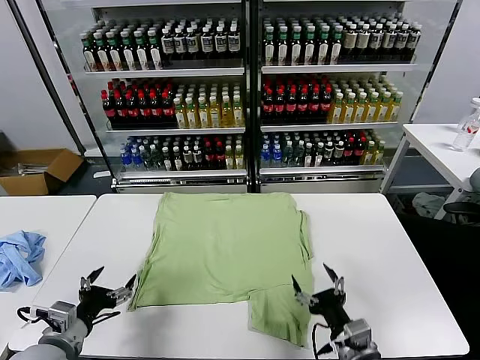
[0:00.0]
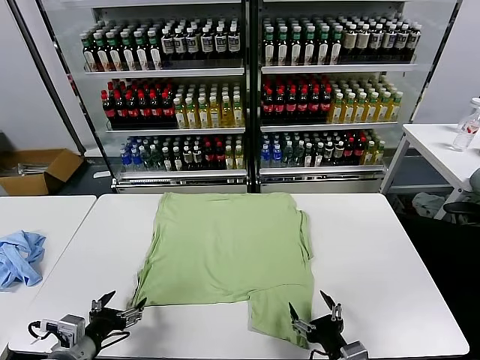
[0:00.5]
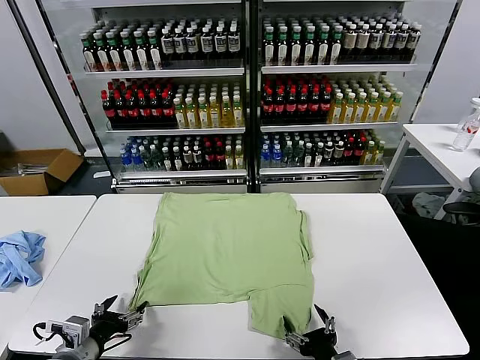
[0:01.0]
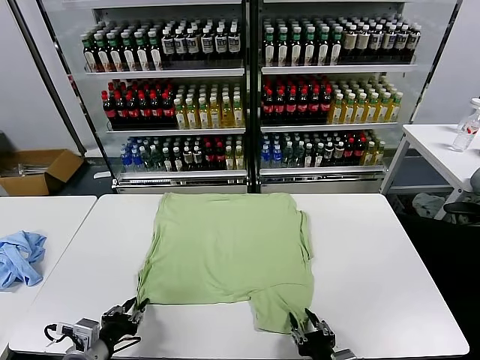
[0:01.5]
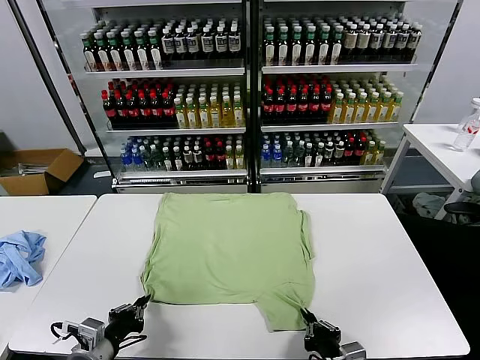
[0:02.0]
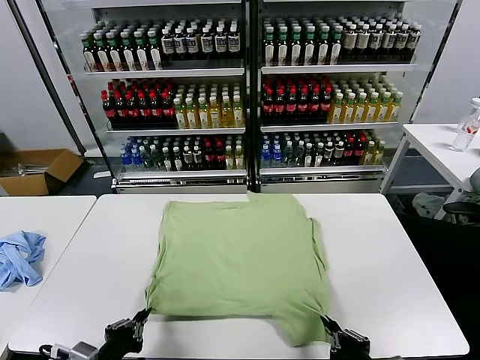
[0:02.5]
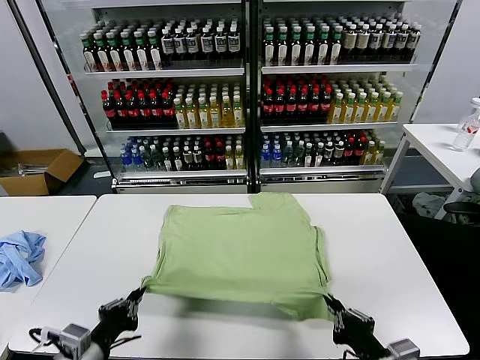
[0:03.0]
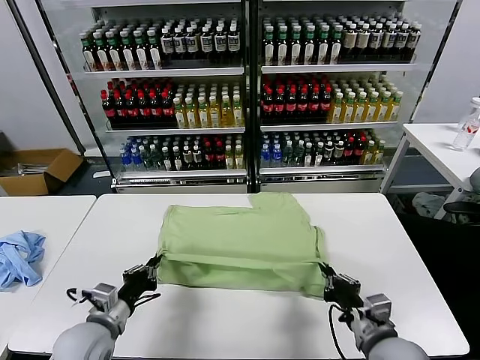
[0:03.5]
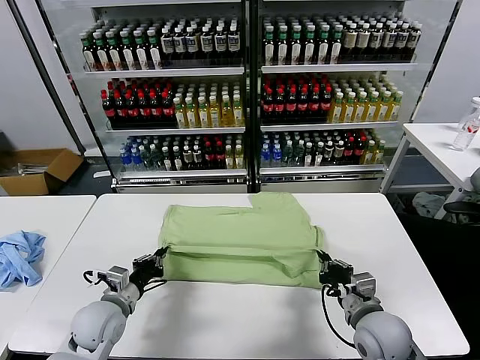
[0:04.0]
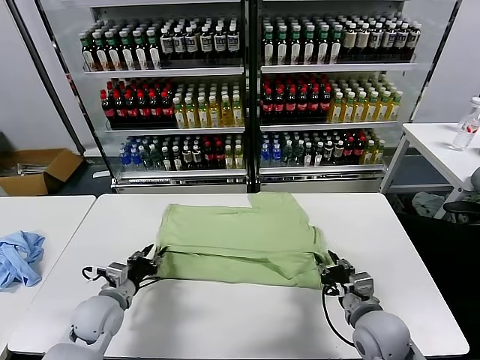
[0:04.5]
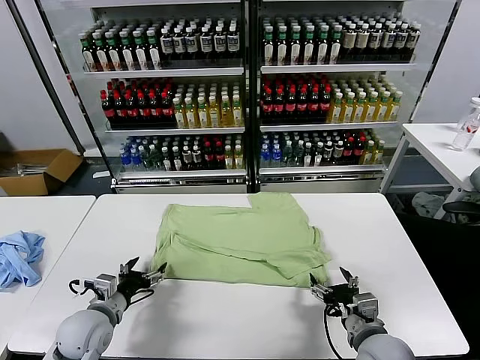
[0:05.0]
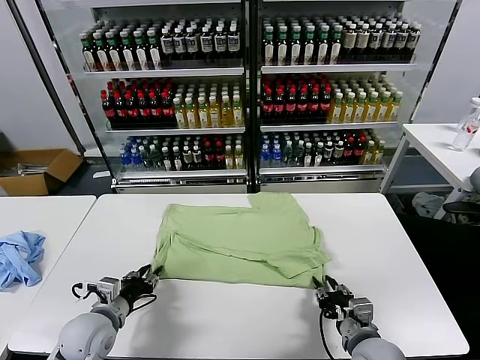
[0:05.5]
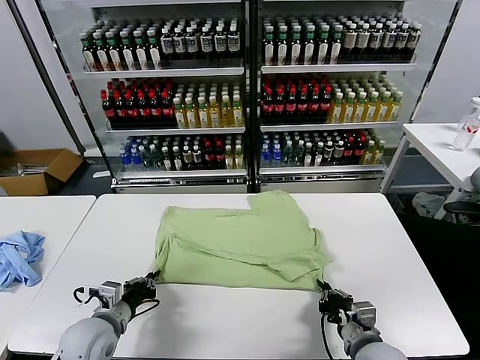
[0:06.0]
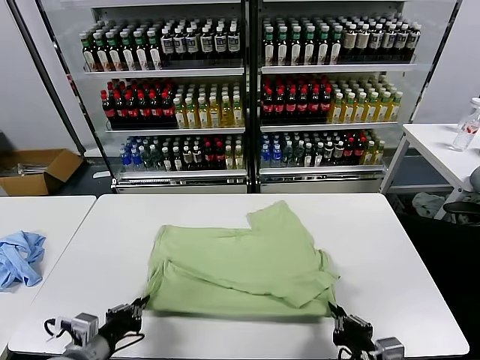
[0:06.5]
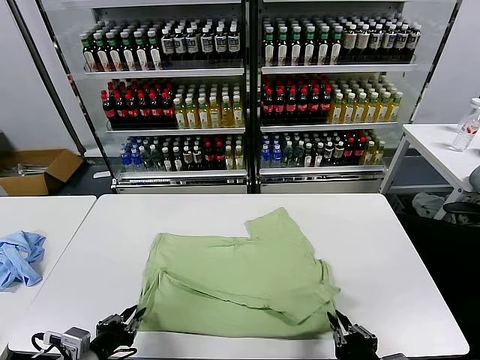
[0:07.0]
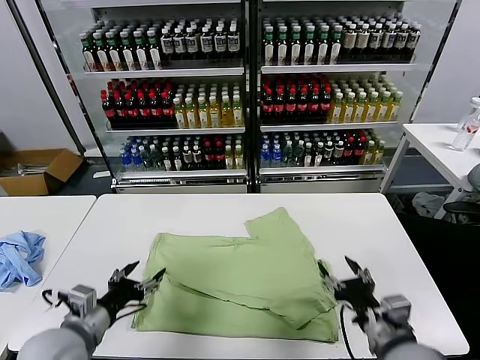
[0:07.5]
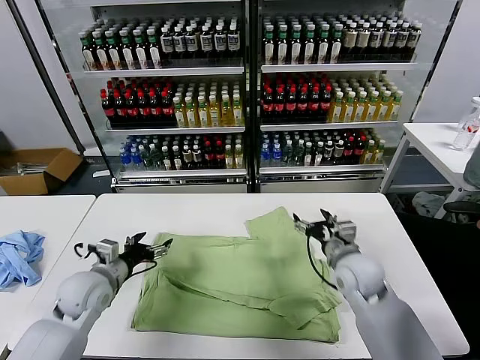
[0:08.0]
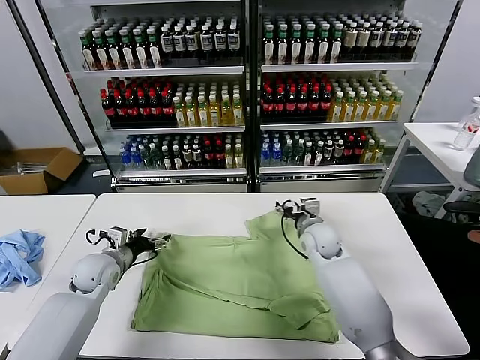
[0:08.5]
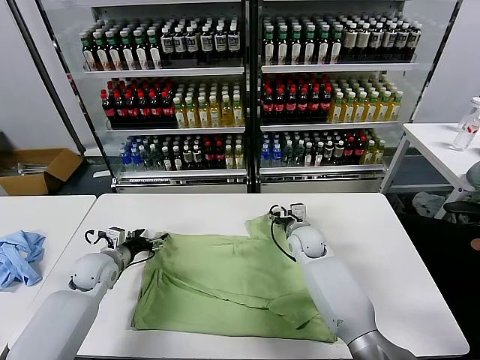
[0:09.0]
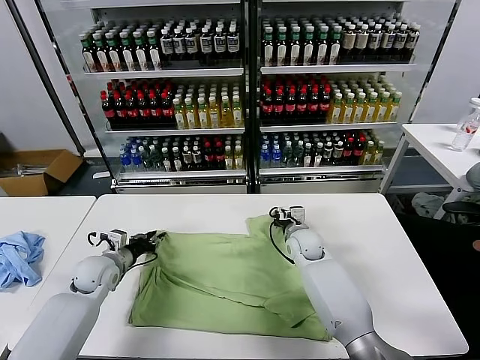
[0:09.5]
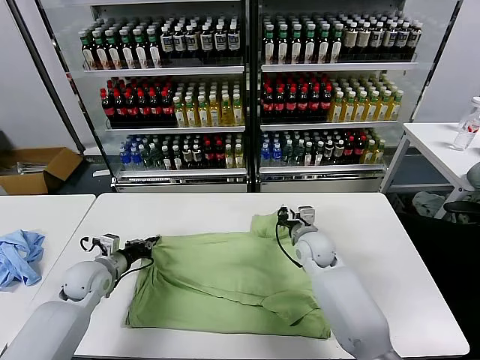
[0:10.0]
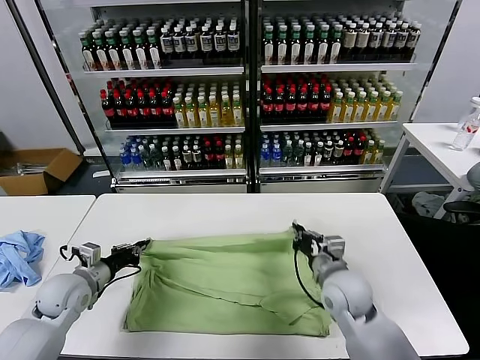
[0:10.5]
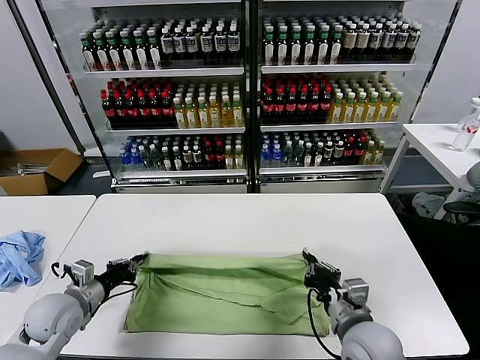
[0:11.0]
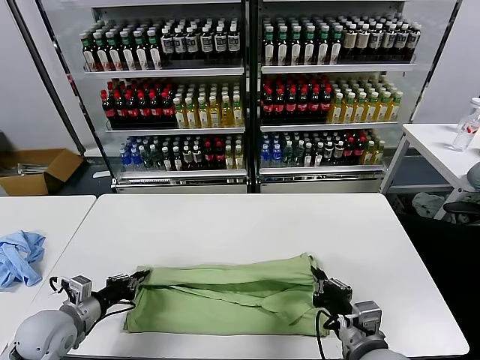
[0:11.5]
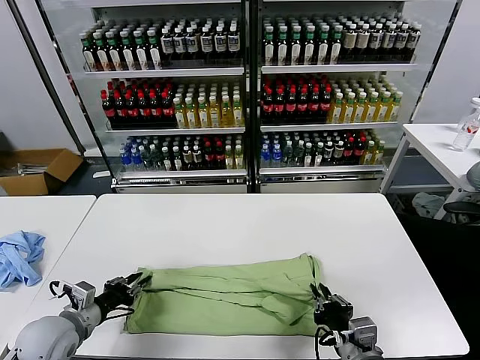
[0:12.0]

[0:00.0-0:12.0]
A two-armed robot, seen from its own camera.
Task of the whole recording: fold and organize the clothes.
Step, 0:00.0 to 0:01.5: use both grippers simultaneously to clamp the lower edge of the clothing fabric.
Step, 0:02.0 to 0:04.0: use both grippers to drag the lower edge of the fabric forward and fold it over the upper edge.
Step, 0:04.5 to 0:07.0: Drag the clothes downward with both gripper.
Step, 0:07.5 to 0:09.5: use both grippers simultaneously to clamp the upper edge of the clothing fabric.
0:02.0 to 0:04.0: The two grippers go approximately 15 cm forward.
0:04.0 to 0:06.0: The grippers both shift backward by some 5 cm. The left gripper opens and closes again. The right gripper opens and closes again.
0:06.0 to 0:08.0: The left gripper moves forward, some 10 cm, and opens; the right gripper moves forward, some 20 cm, and opens.
0:08.0 to 0:10.0: The left gripper ends up about 5 cm from where it was, and closes up; the right gripper closes its fingers.
0:10.0 to 0:12.0: The right gripper is displaced backward by some 30 cm. The left gripper is displaced backward by some 15 cm, and opens.

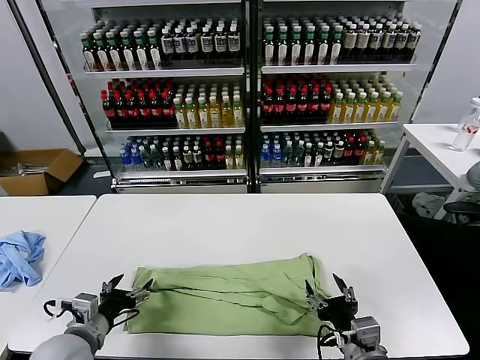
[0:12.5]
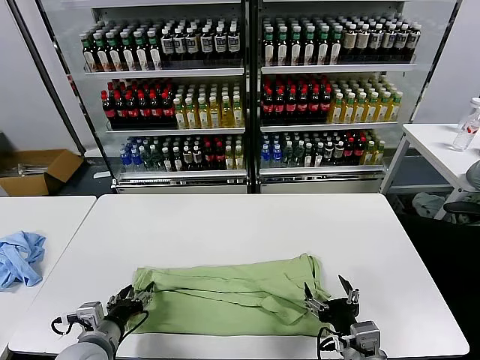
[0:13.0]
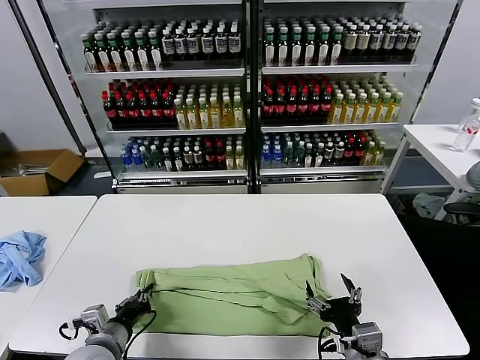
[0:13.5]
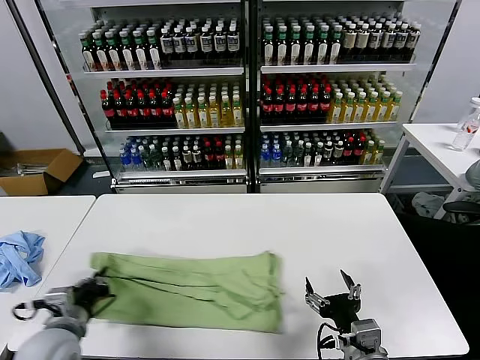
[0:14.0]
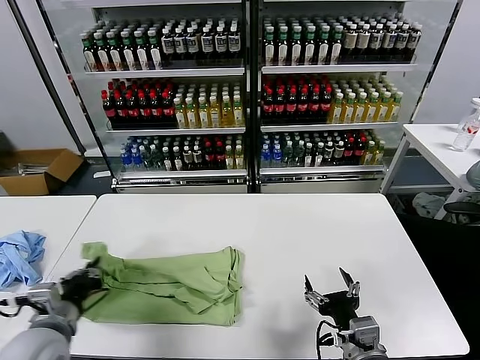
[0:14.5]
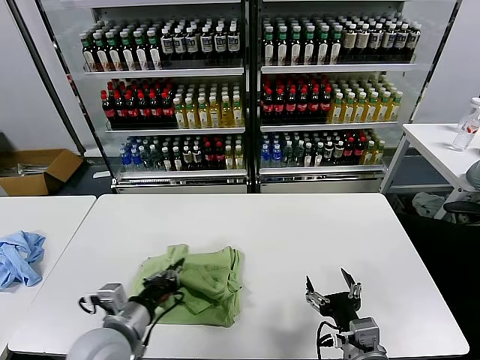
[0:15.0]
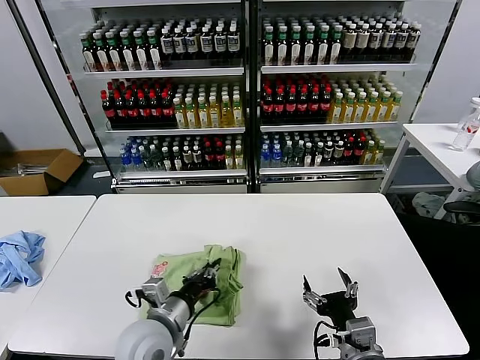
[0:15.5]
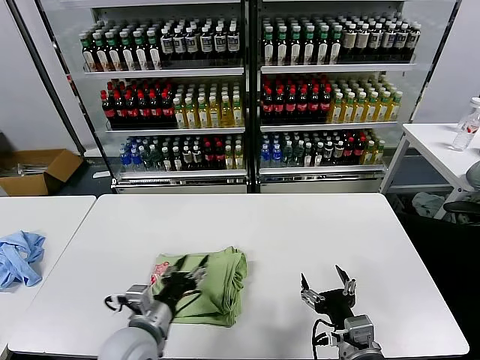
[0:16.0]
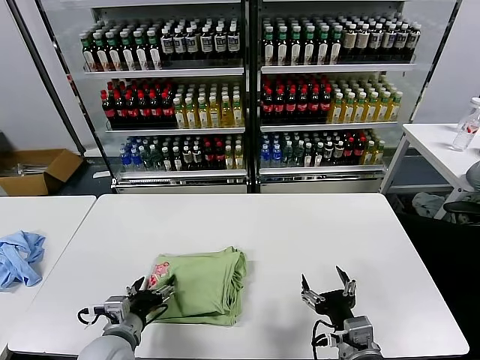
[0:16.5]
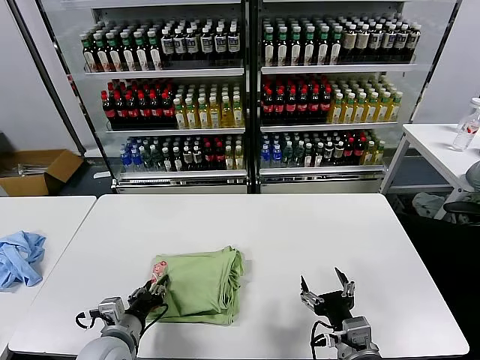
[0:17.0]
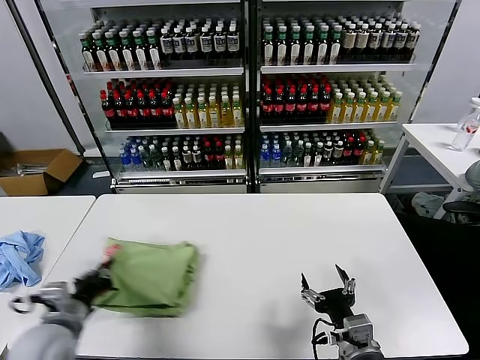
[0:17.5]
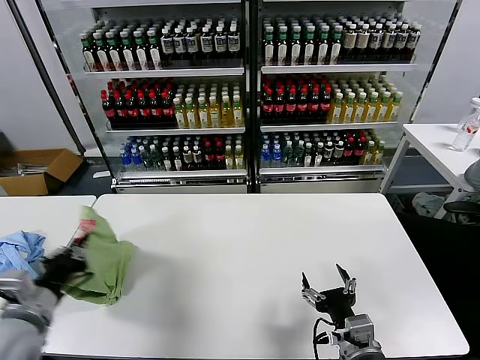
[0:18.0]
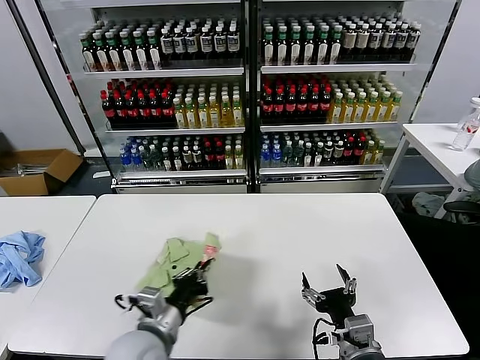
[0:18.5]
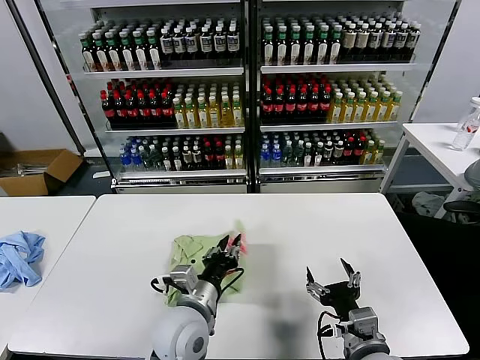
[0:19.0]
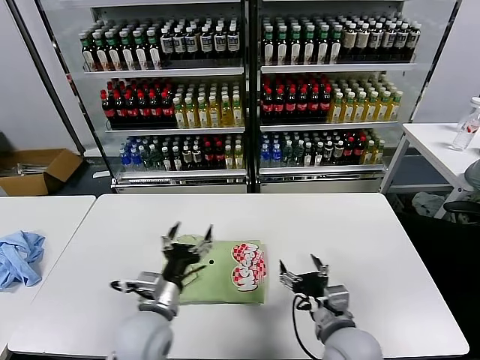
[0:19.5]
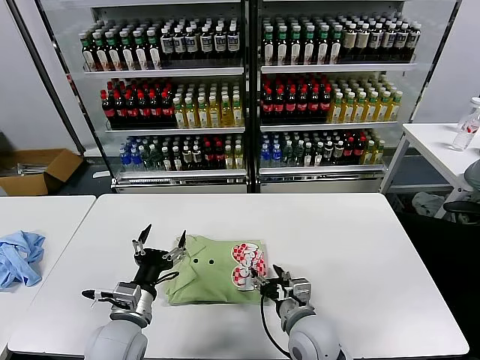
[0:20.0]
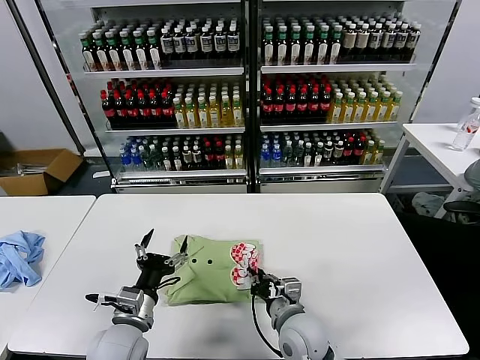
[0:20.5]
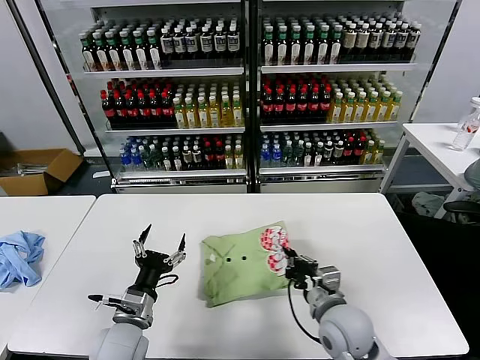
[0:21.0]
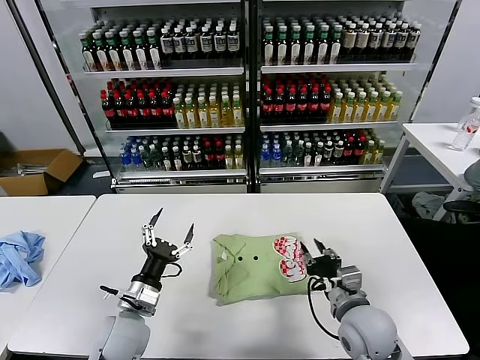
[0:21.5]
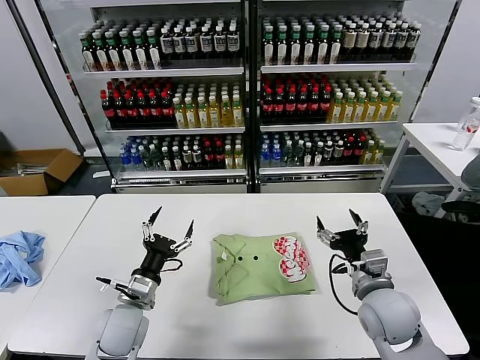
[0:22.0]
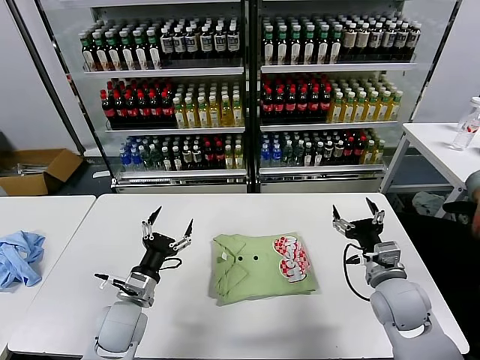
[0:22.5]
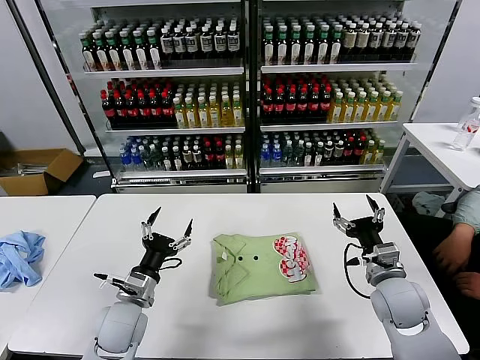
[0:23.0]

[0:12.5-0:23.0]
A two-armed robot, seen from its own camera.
Task of the whole recording: fold and organize the clothes.
Step, 0:12.5 to 0:13.5: use the left gripper to clamp the left edge of the fabric.
Step, 0:14.0 to 0:15.5: use the left gripper to drag the left edge of the fabric to the left and folds it over the right edge.
Step, 0:16.0 to 0:19.0: Flip the folded clothes over with left gripper.
Step, 0:19.5 to 0:21.5: Drag the clothes to the center of the table.
0:12.5 to 0:14.5: The left gripper moves upward, some 5 cm, and closes.
0:14.5 to 0:16.5: The left gripper heads to the right and downward, covering roughly 10 cm, and opens its fingers.
0:16.5 to 0:19.0: The left gripper shifts about 15 cm to the right and upward, and closes its fingers.
0:19.0 to 0:21.0: The right gripper shifts some 10 cm forward, and closes up, while the left gripper is displaced to the left by some 10 cm, and opens its fingers.
0:21.0 to 0:23.0: The right gripper shifts roughly 10 cm to the right, and opens its fingers.
